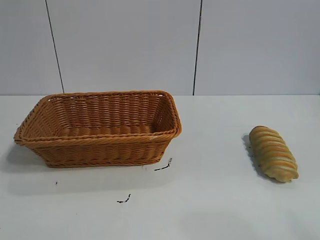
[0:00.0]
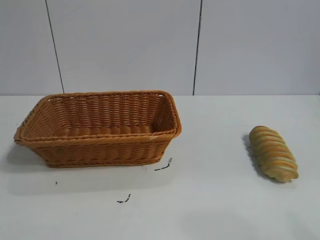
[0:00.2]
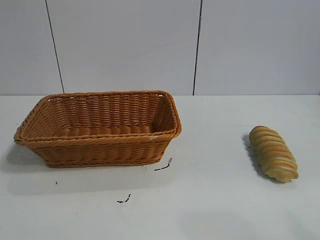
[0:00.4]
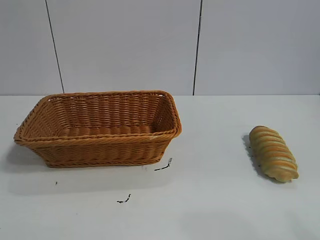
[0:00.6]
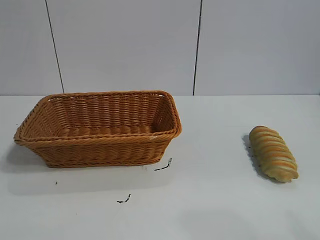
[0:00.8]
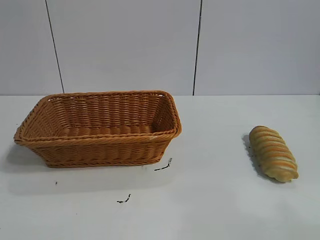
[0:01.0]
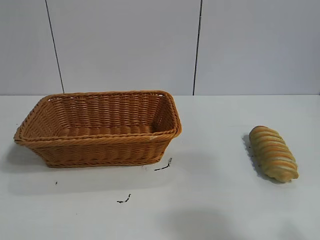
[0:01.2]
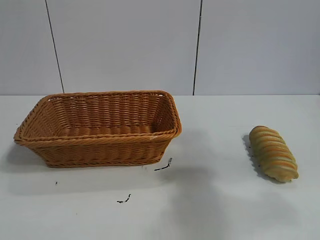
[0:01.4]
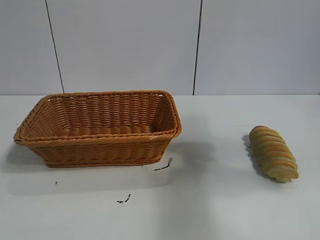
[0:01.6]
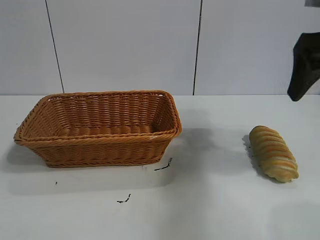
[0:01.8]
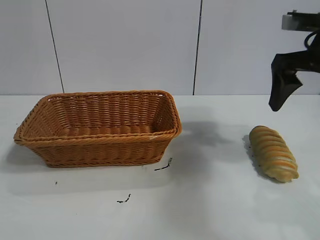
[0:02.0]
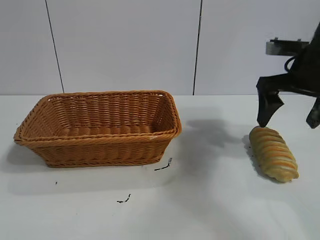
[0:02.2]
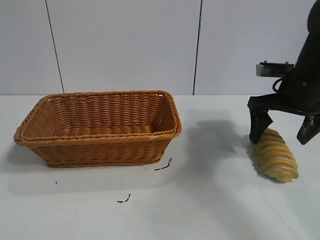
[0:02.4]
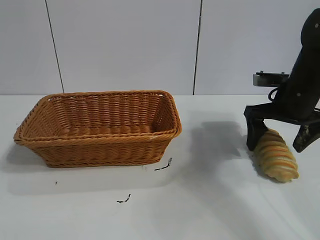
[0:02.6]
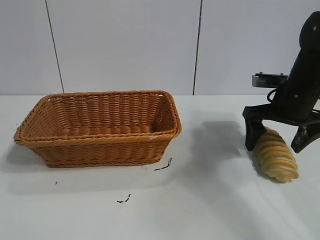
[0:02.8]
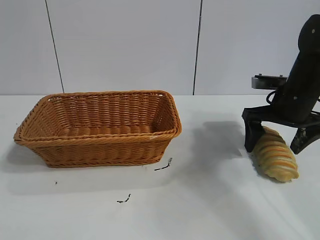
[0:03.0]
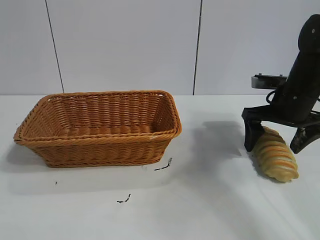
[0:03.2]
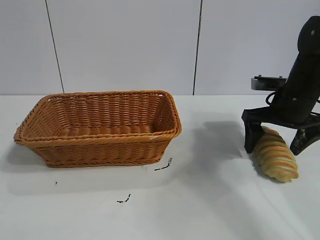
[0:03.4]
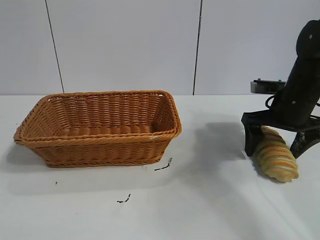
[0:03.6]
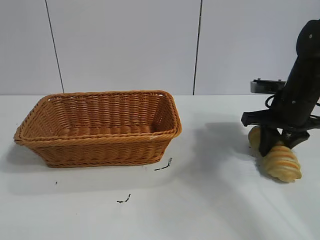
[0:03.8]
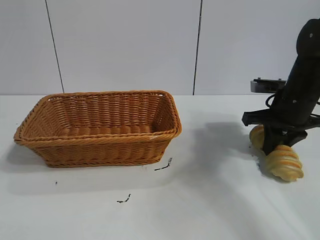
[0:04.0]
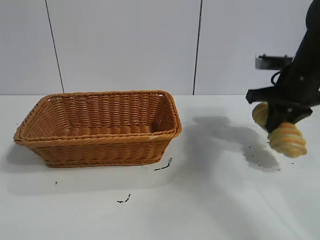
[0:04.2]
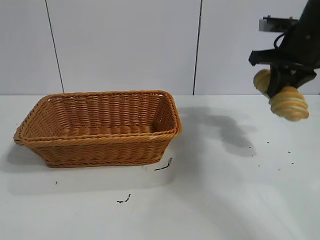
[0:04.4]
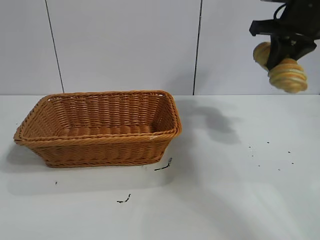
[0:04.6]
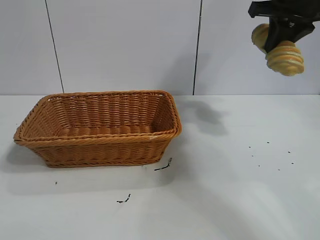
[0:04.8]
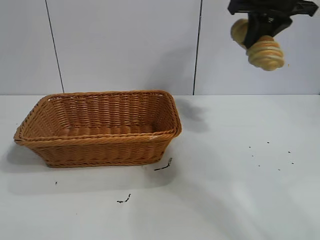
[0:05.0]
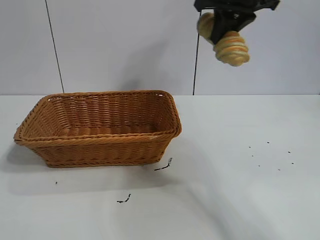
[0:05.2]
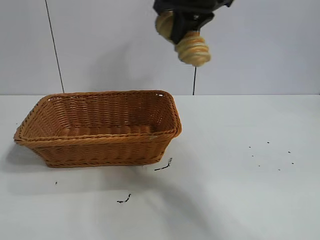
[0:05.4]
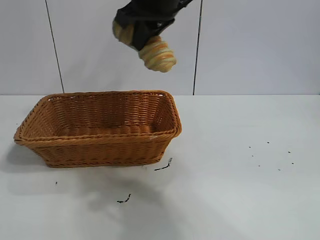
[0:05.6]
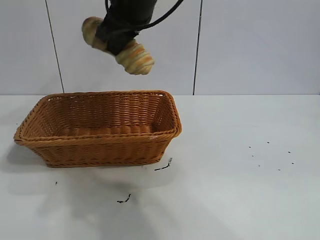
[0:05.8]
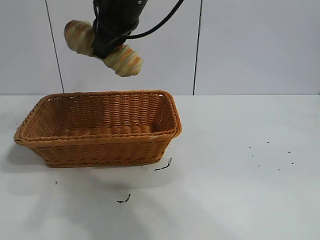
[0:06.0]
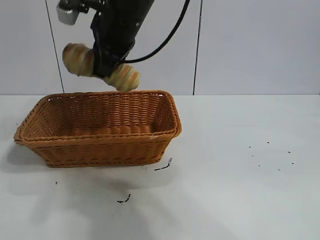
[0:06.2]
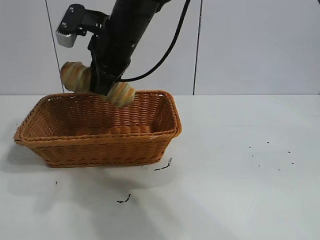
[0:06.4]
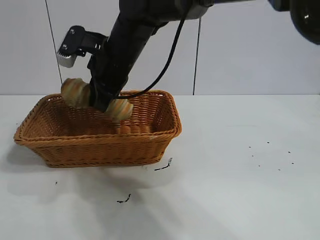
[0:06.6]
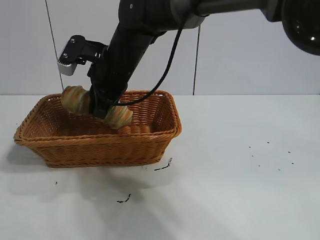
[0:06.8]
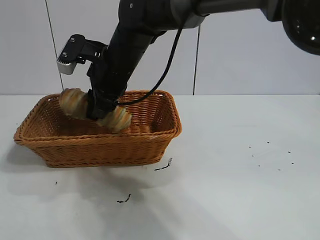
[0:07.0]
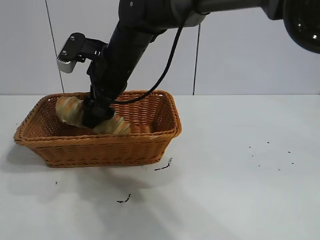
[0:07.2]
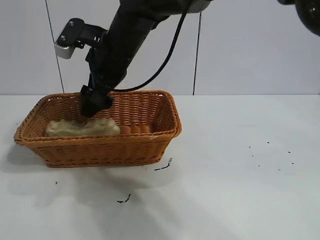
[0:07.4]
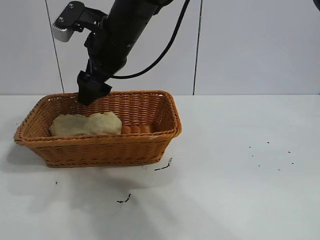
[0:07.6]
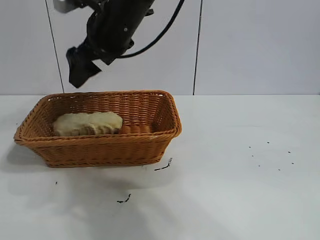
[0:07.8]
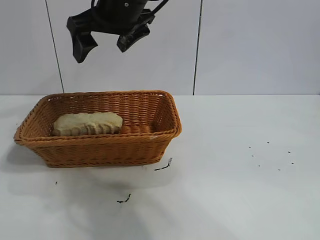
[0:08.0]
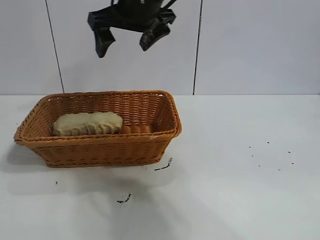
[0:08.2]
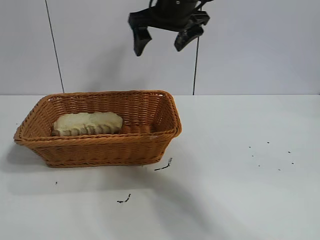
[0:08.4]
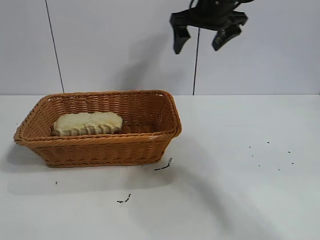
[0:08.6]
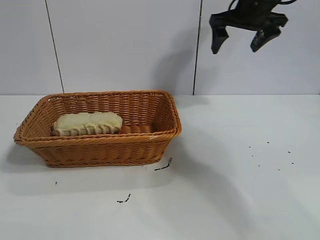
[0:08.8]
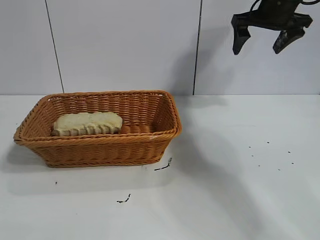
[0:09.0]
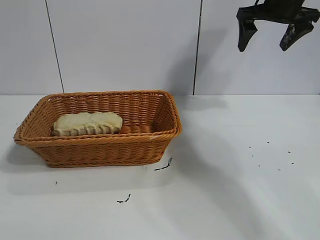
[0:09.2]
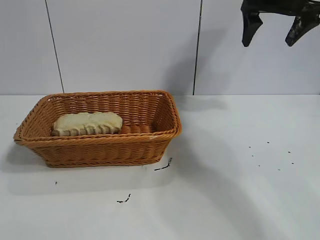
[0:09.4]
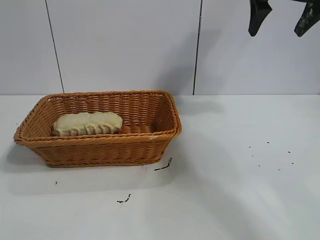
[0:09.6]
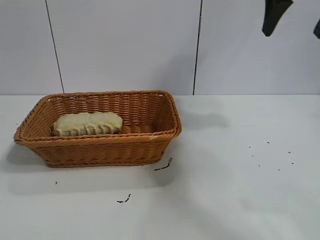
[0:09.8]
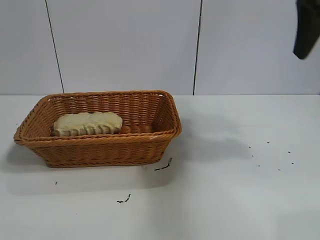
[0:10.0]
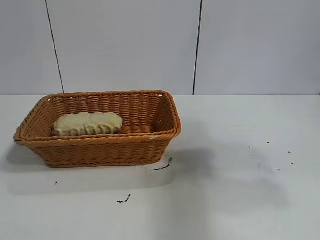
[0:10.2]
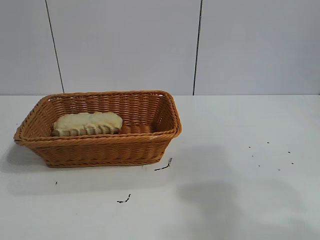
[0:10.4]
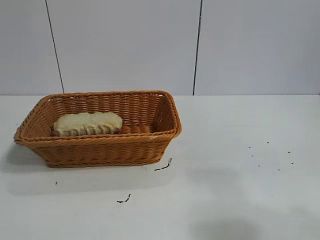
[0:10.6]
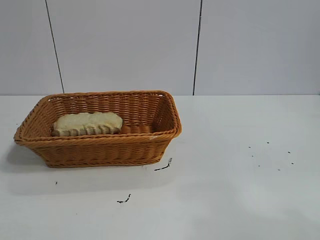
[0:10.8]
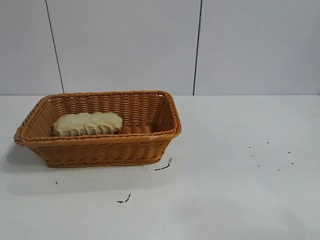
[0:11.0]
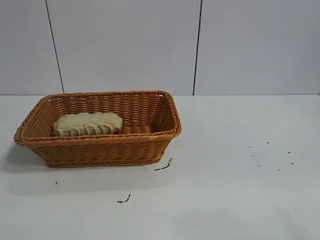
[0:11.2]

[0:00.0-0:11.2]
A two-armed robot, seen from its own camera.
Task of the whole recording: pick up the long bread and put it into the basket.
Step, 0:01.8 to 0:04.0: Grasp the long bread with right gripper.
Step, 0:04.2 to 0:08.0: Place the long bread in the basket with right gripper.

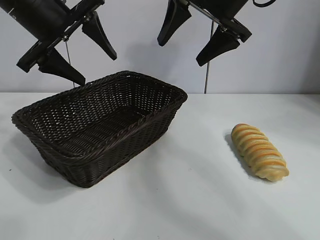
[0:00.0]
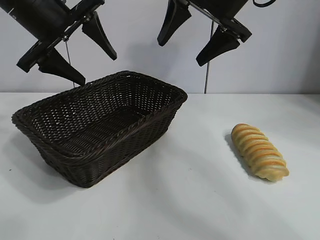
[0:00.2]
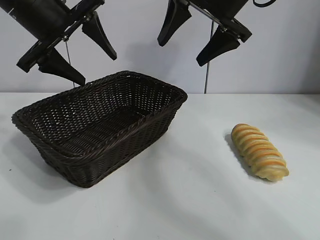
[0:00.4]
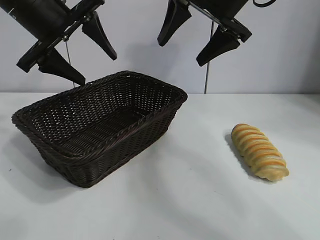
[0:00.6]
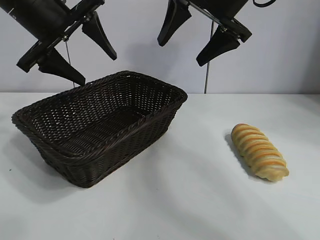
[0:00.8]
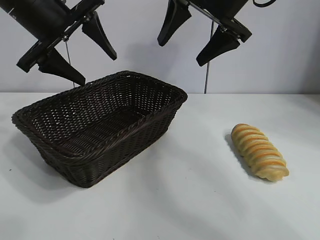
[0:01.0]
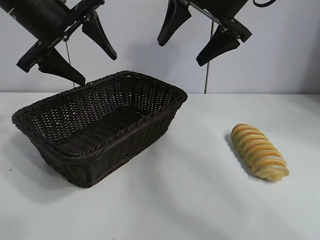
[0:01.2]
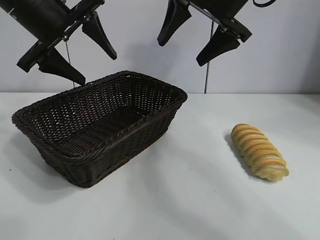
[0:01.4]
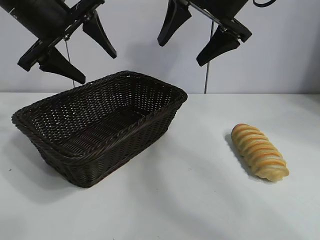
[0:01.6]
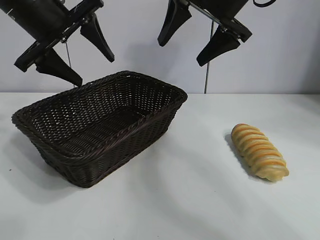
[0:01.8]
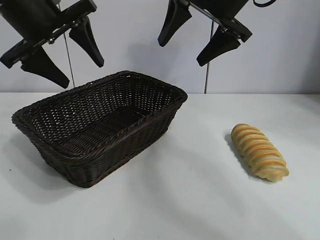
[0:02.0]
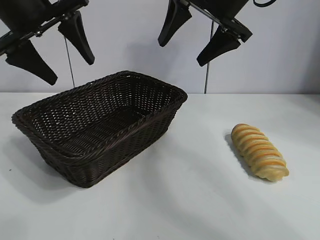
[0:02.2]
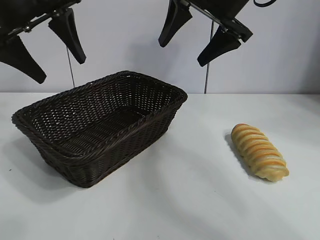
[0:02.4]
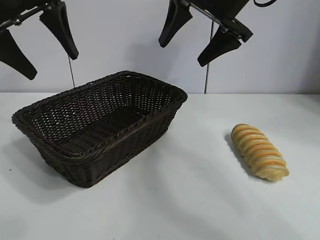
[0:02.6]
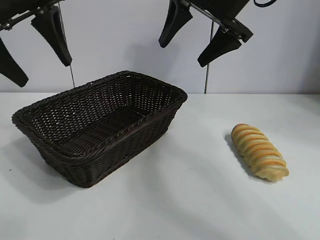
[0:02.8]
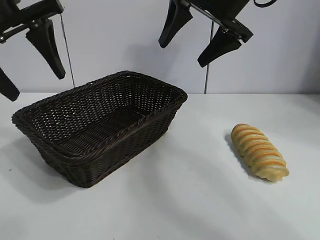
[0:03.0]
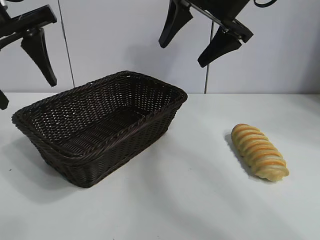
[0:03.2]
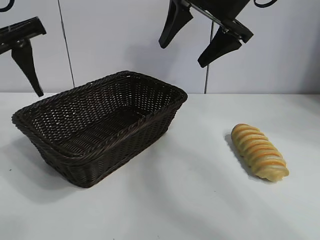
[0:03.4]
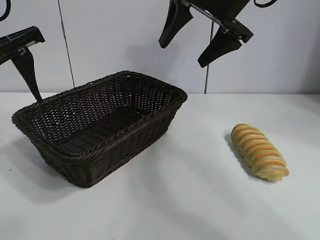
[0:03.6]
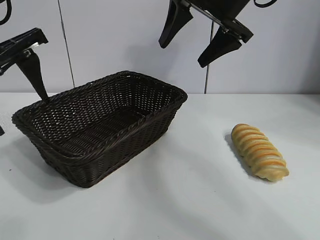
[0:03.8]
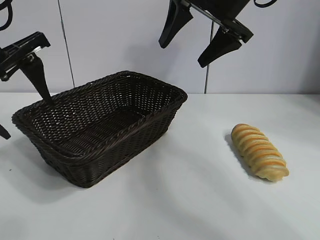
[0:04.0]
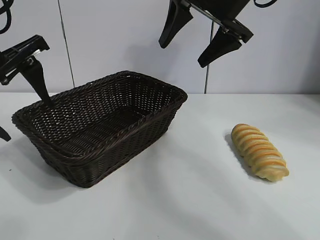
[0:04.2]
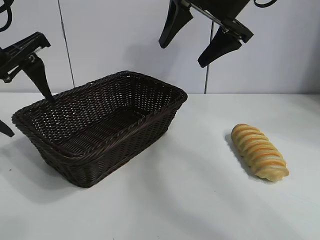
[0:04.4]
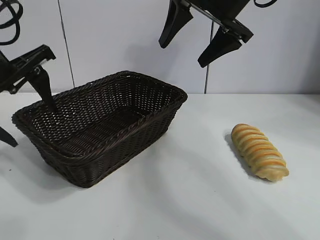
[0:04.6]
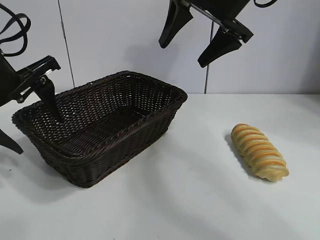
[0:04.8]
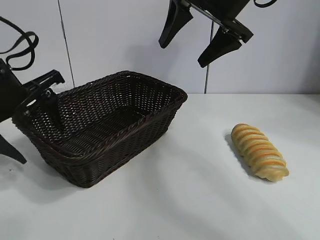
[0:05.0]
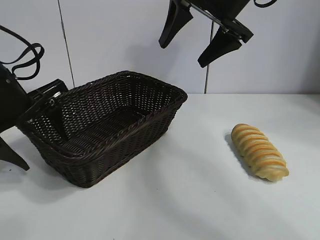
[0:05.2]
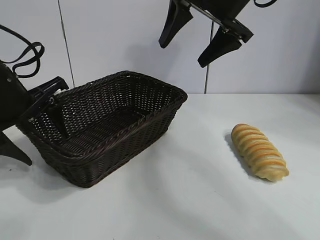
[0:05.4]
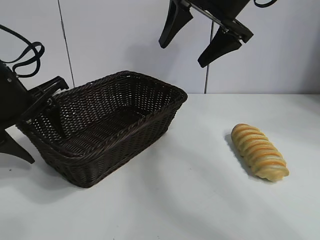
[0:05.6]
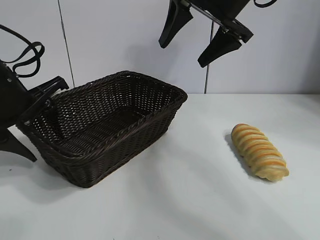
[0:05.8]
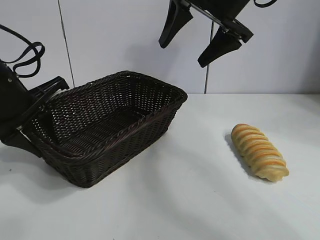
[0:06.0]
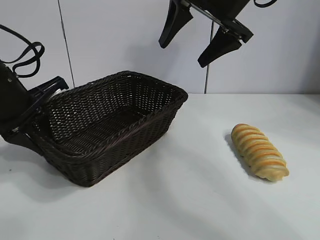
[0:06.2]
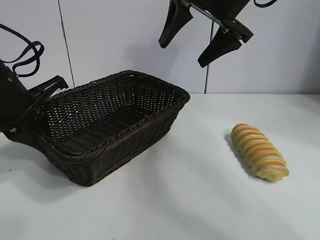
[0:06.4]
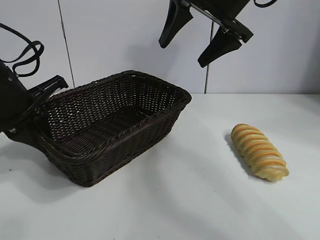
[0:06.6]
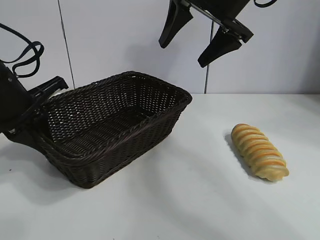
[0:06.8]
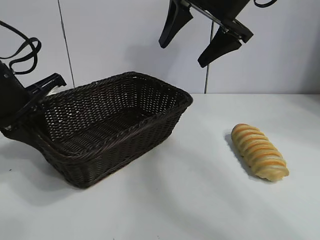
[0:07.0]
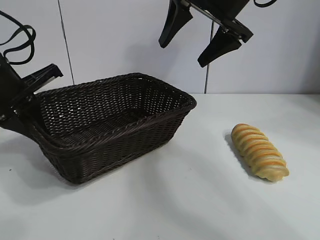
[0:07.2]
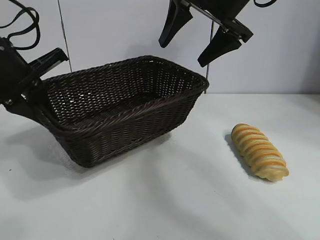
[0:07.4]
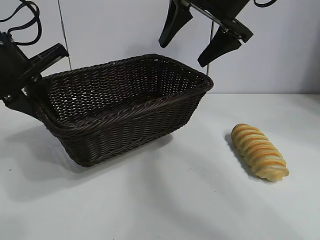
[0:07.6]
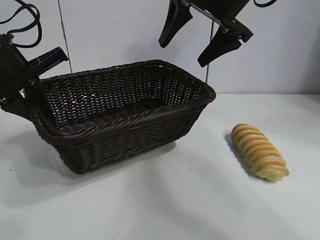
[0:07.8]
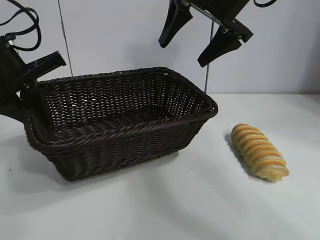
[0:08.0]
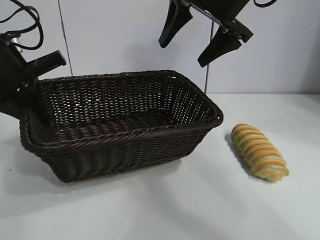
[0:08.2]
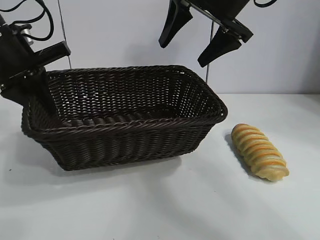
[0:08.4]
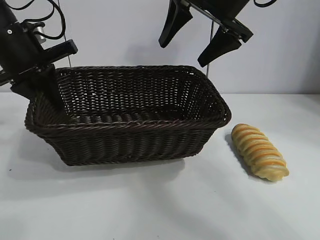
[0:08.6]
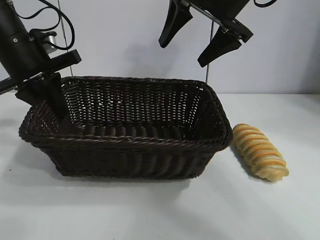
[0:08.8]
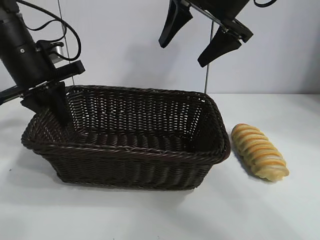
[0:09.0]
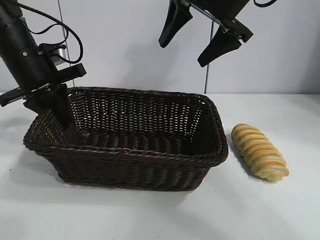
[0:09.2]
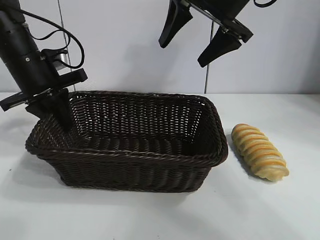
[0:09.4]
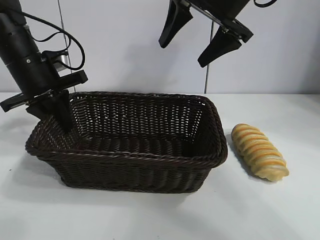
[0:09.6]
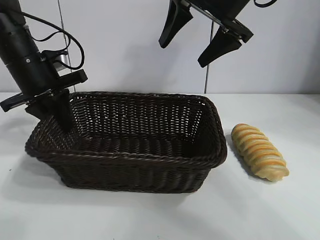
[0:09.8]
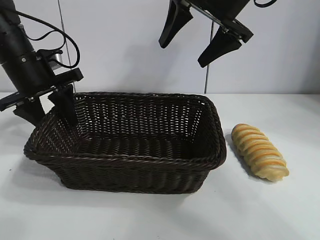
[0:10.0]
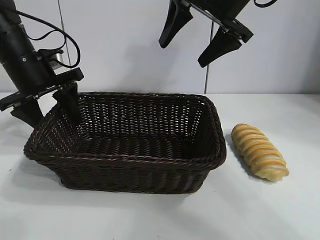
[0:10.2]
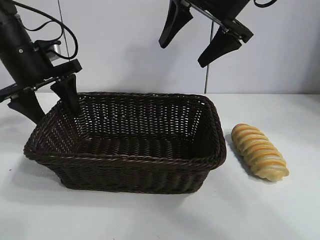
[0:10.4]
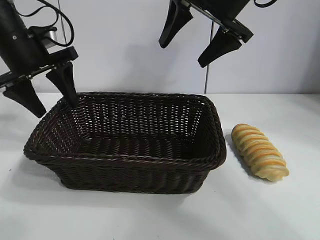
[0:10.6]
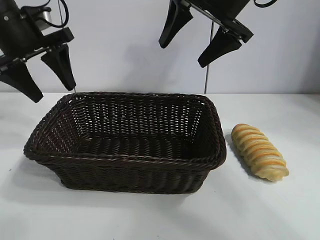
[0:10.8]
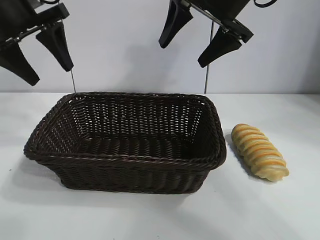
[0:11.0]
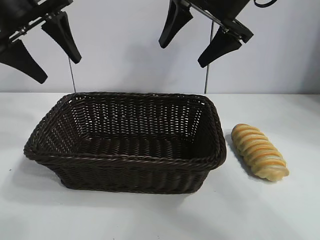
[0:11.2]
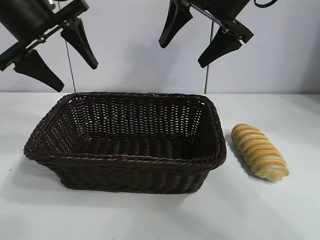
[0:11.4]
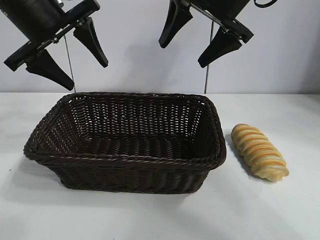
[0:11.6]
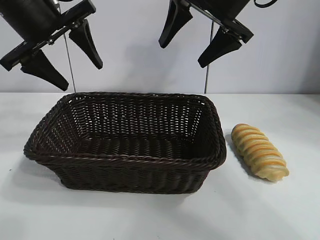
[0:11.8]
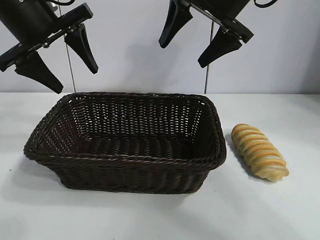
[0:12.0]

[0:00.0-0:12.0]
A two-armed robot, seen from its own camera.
Task of the whole recording: pick up the long bread and put it into the basket.
Step, 0:01.6 to 0:06.6: Grasp the basket with the left gripper.
Step, 0:06.8 to 0:10.2: Place the basket in the center of the table with the left gripper.
